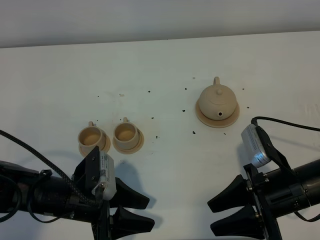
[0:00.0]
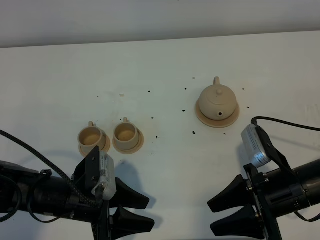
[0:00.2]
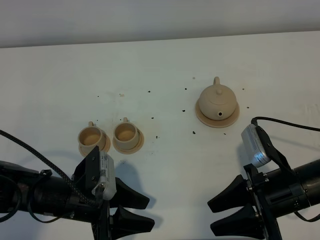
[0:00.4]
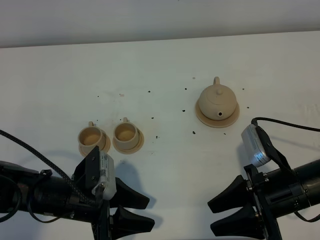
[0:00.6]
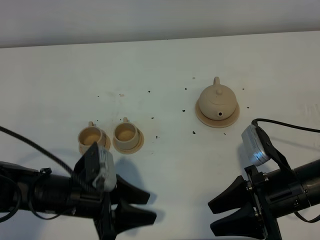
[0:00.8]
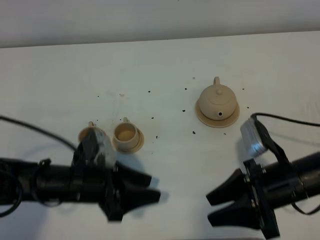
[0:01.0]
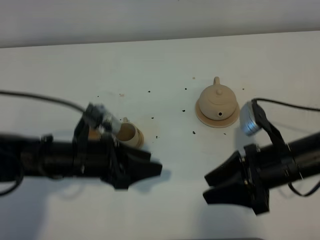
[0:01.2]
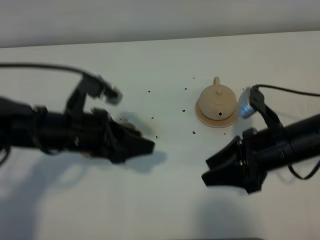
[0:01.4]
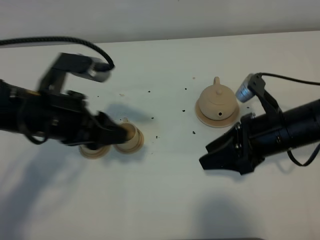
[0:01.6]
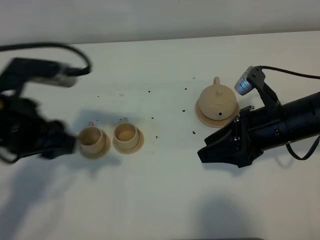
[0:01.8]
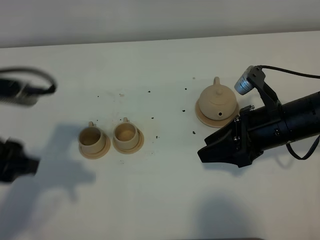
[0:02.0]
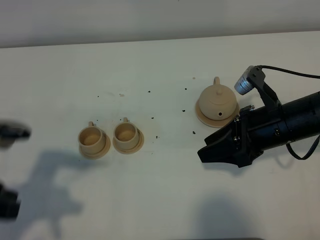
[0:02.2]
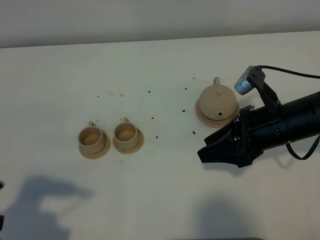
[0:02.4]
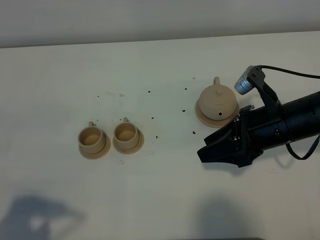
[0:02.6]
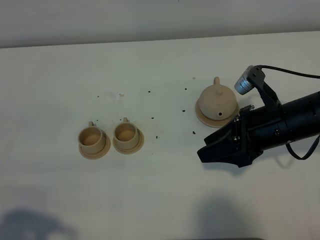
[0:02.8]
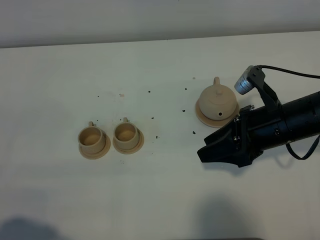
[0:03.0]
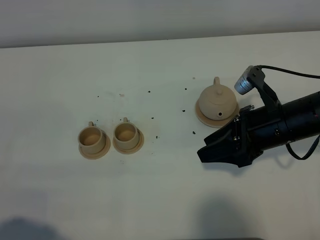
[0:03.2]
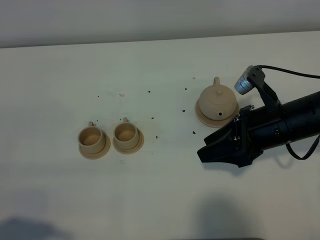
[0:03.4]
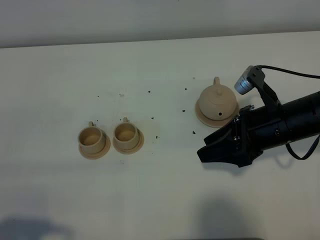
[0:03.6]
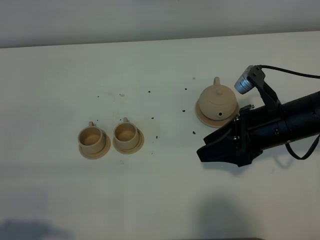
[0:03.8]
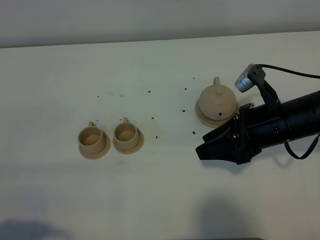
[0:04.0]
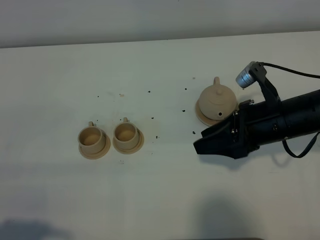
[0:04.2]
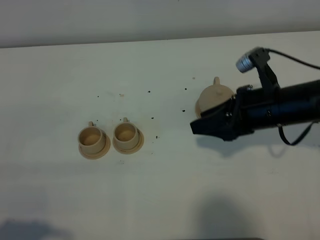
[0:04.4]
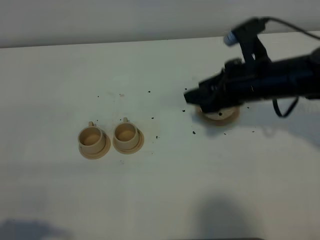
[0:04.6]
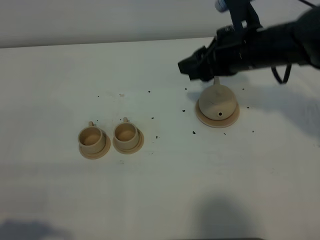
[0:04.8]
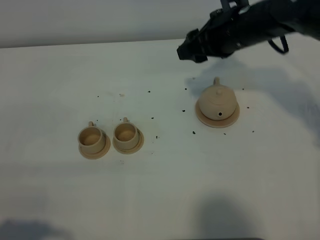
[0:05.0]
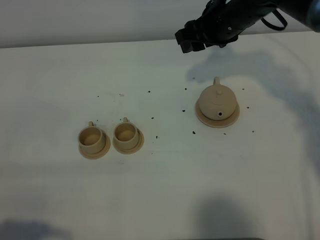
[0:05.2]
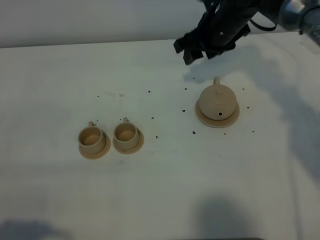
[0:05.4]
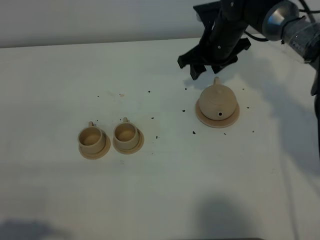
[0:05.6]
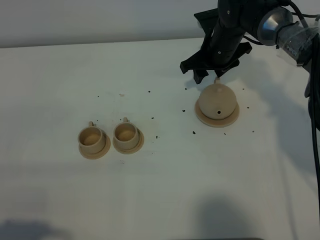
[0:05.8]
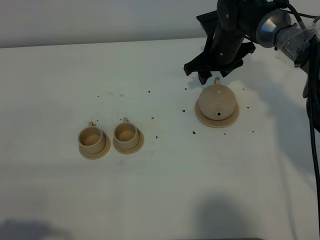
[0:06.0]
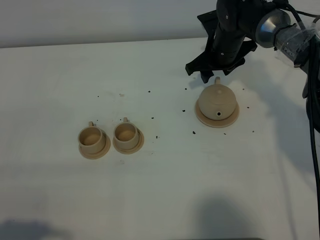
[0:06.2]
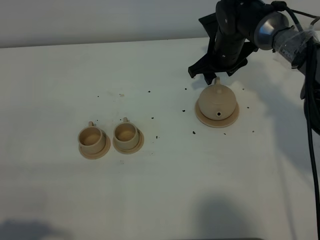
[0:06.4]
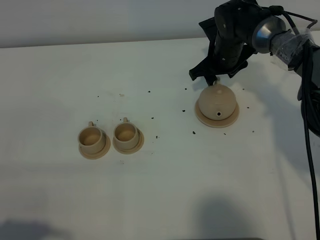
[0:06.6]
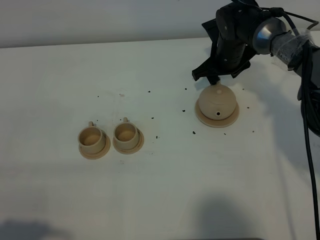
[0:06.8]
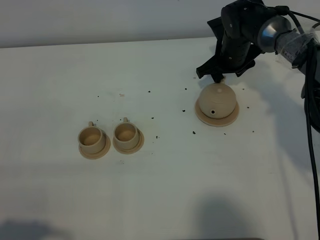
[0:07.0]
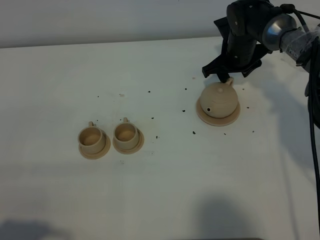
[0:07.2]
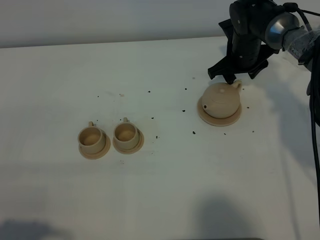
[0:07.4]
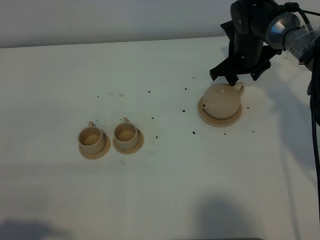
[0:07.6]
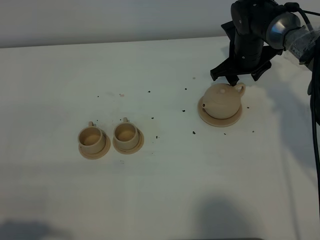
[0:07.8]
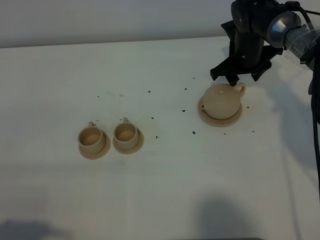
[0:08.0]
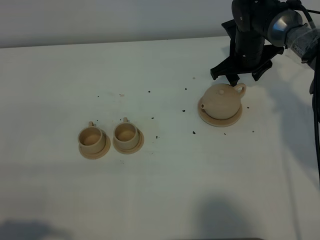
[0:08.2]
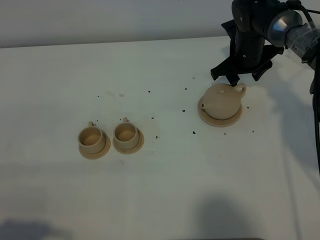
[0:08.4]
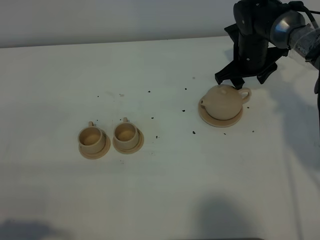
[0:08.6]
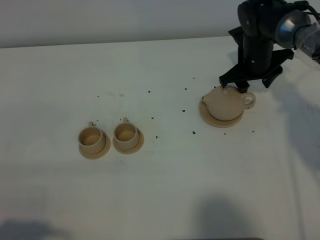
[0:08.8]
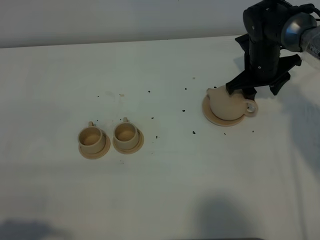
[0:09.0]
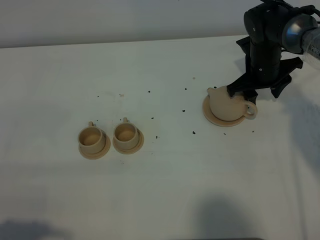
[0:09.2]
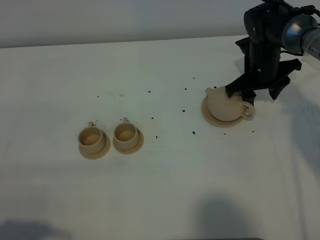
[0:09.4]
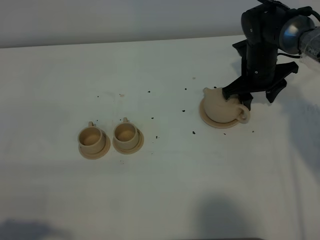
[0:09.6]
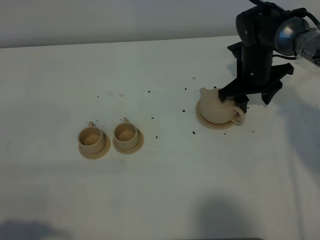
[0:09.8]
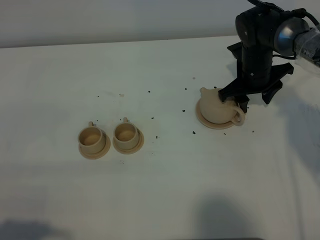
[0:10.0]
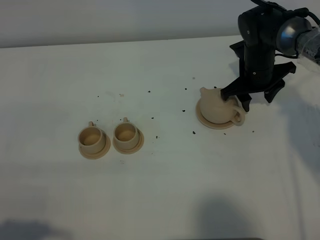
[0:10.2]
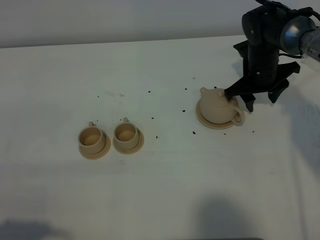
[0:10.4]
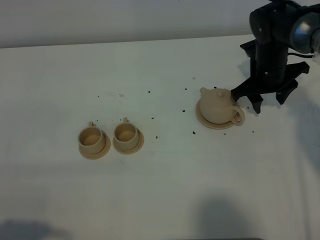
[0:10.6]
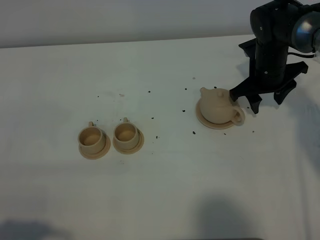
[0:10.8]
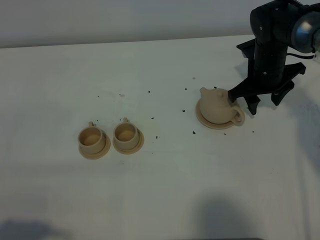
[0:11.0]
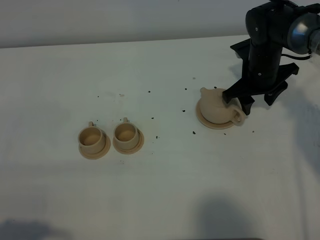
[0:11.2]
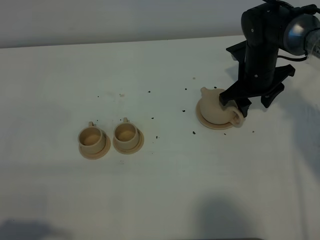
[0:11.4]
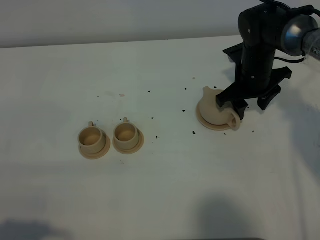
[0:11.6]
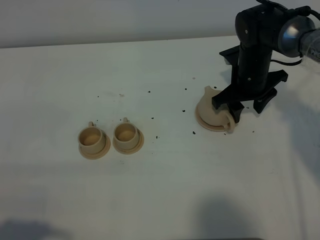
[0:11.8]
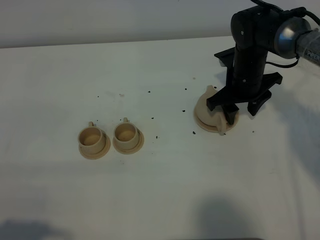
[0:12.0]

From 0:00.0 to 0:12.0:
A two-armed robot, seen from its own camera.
Task of the whole recording: grasp the brown teapot and pour the tea into the two brown teacups one by one, put the brown teapot back in its original place.
From 0:00.0 to 0:01.6: The left gripper heads upward and forward, covering approximately 15 cm. The right gripper goes about 10 cm forward.
From 0:01.6 to 0:03.0: The left gripper heads backward and to the left, covering about 25 cm.
From 0:03.0 to 0:04.4: The grippers stay close to where they were, moving slightly.
From 0:04.4 to 0:06.0: The right gripper is displaced forward by approximately 20 cm.
From 0:06.0 to 0:07.6: The right gripper shifts by roughly 5 cm.
From 0:07.6 to 0:10.4: The grippers make only small movements.
From 0:10.4 to 0:12.0: The right gripper changes place by about 5 cm.

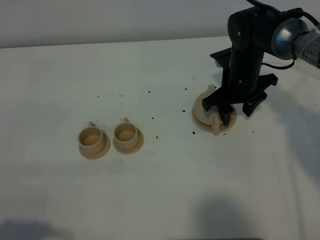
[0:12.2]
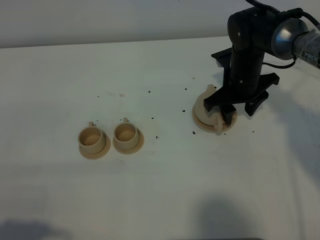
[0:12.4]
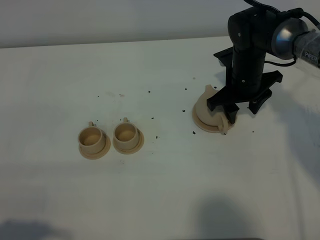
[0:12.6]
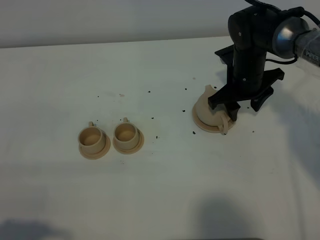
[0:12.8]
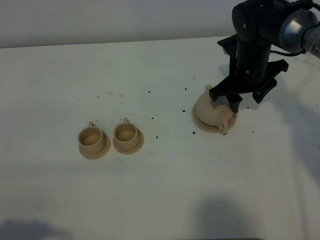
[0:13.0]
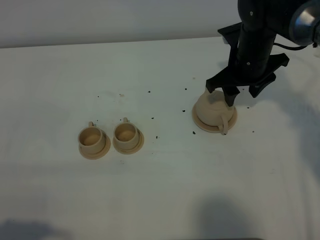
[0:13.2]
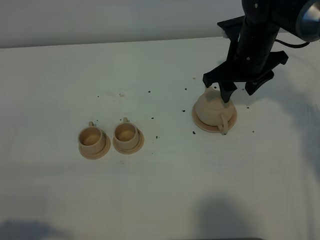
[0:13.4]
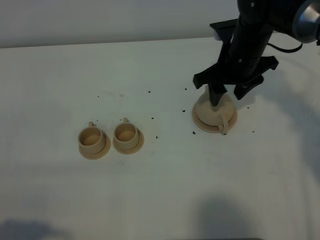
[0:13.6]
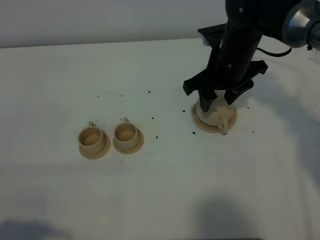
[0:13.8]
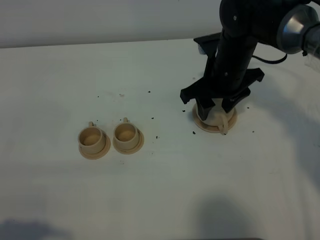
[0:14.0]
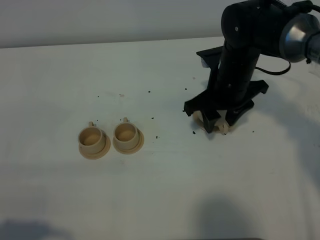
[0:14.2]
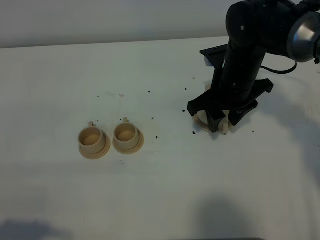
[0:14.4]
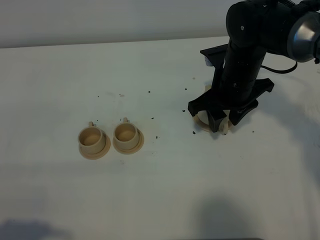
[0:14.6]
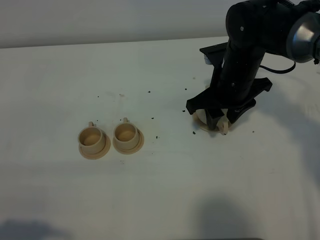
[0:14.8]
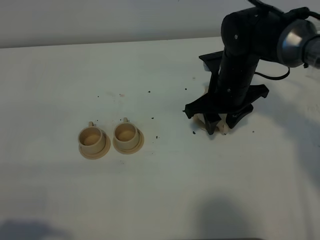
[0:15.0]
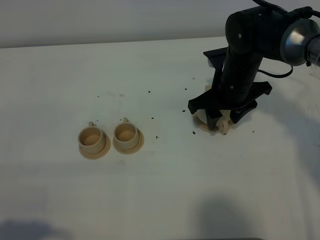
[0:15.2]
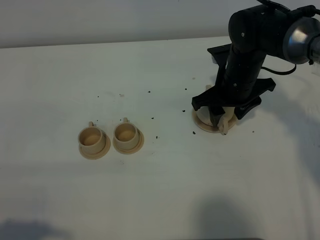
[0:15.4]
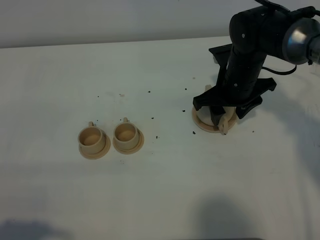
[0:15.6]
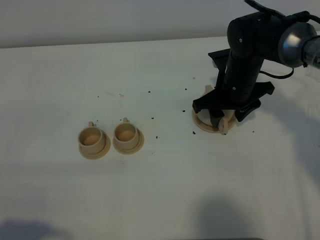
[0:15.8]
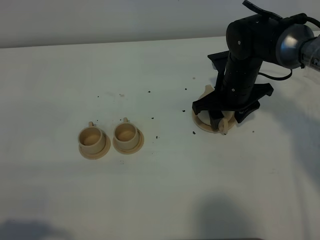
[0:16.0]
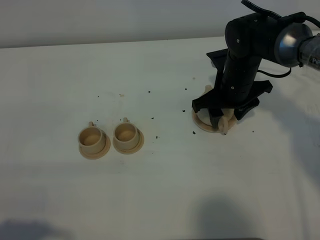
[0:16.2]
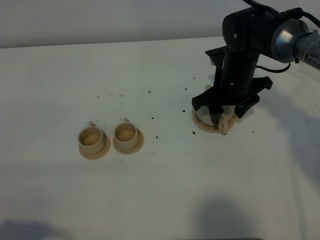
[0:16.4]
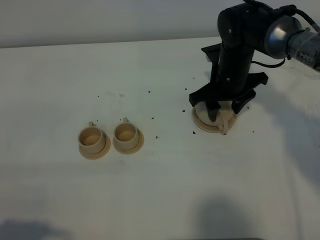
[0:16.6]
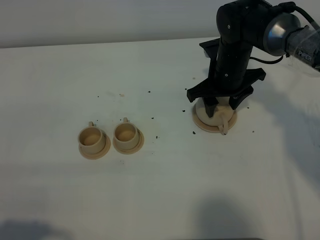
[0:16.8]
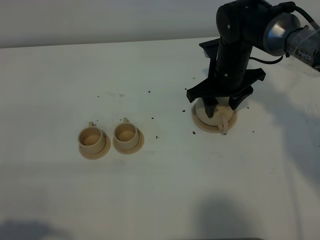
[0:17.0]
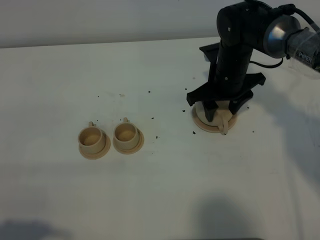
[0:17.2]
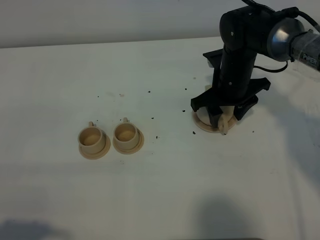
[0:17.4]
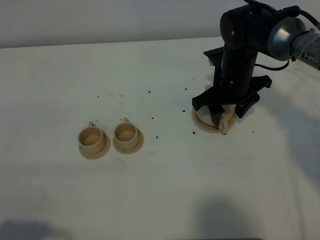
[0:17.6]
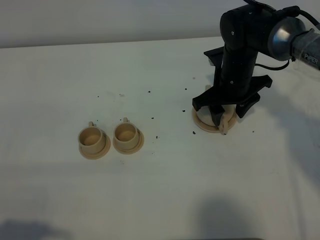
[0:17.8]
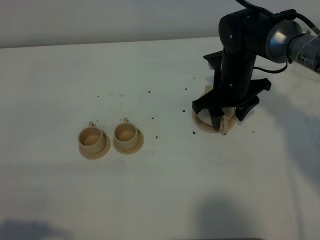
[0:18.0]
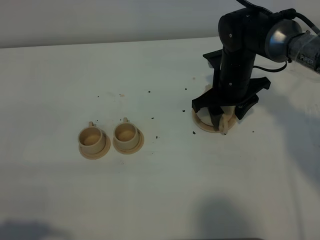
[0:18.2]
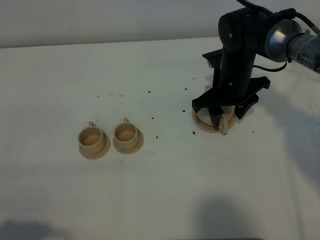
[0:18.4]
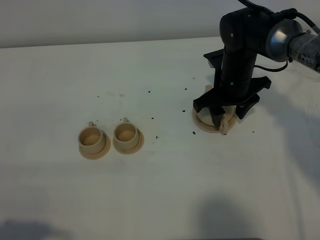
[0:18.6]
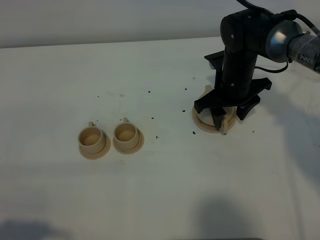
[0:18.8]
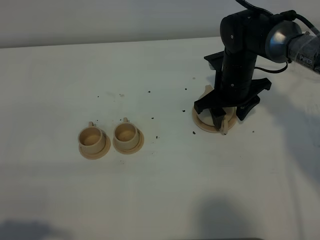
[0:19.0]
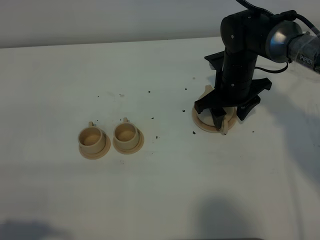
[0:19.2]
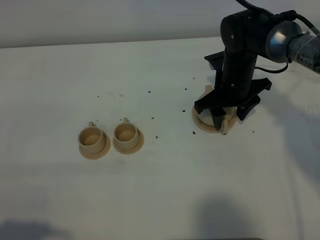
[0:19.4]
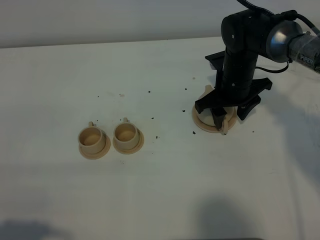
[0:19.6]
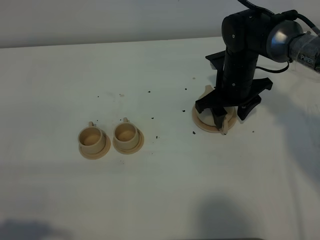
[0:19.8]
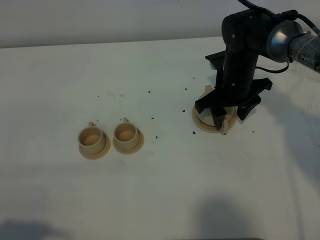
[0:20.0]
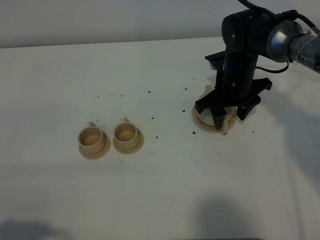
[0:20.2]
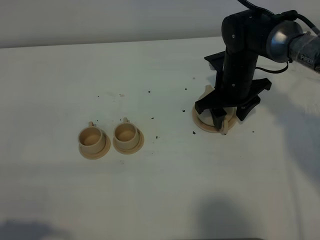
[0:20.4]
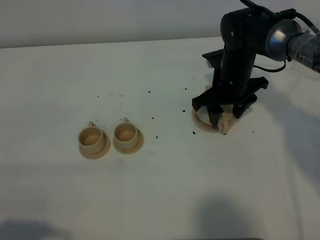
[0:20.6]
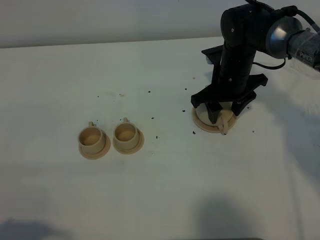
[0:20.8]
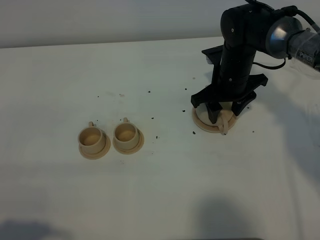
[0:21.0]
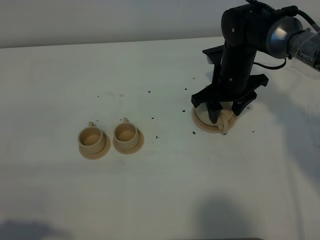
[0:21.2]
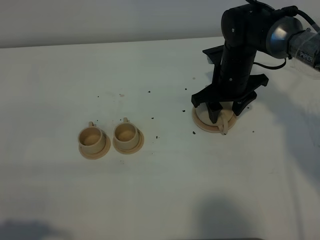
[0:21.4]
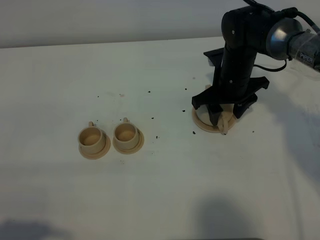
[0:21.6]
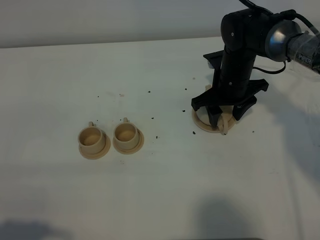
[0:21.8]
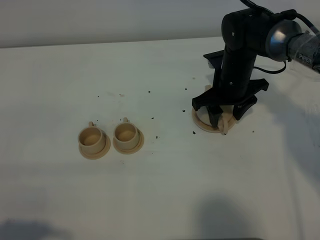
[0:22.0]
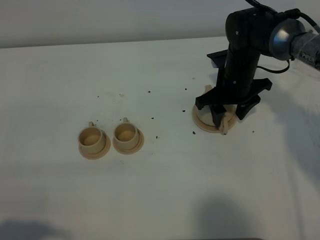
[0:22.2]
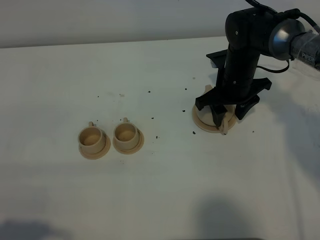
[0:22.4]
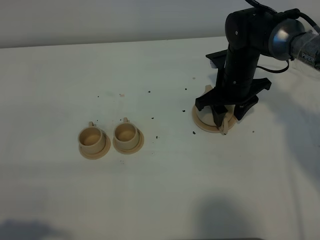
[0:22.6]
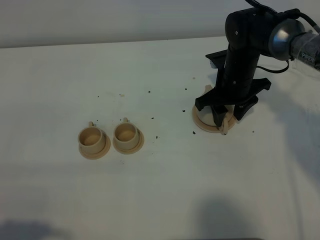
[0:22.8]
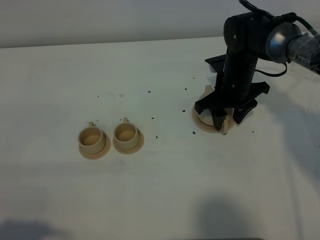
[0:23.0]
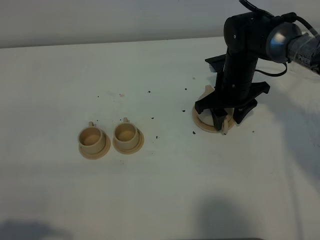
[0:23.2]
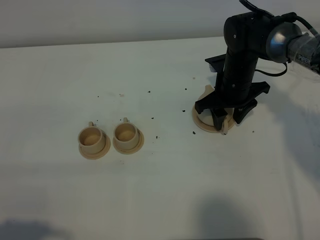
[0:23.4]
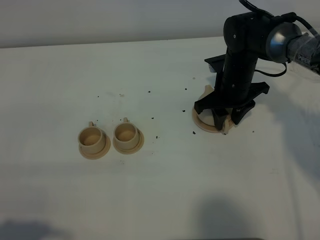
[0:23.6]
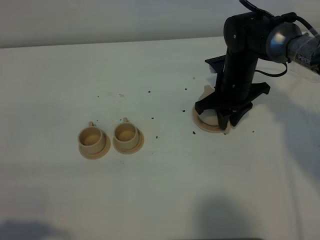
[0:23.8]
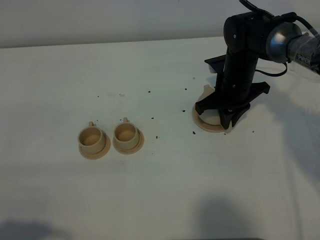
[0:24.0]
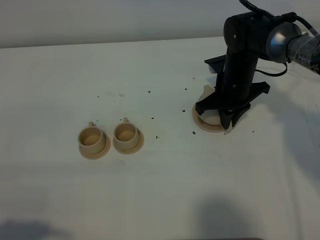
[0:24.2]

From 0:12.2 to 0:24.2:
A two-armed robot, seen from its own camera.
Task of the whole recording: grasp the brown teapot and pour the tea into the two brown teacups one by one, put the brown teapot back in its original place.
From 0:12.2 to 0:13.8: The right gripper shifts some 5 cm upward.
From 0:13.8 to 0:16.6: The grippers make only small movements.
From 0:16.6 to 0:18.2: Both grippers stay about where they are.
From 0:18.2 to 0:21.2: Both grippers stay put.
From 0:21.2 to 0:22.6: Both grippers stay about where they are.
From 0:22.6 to 0:24.2: The right gripper closes.
